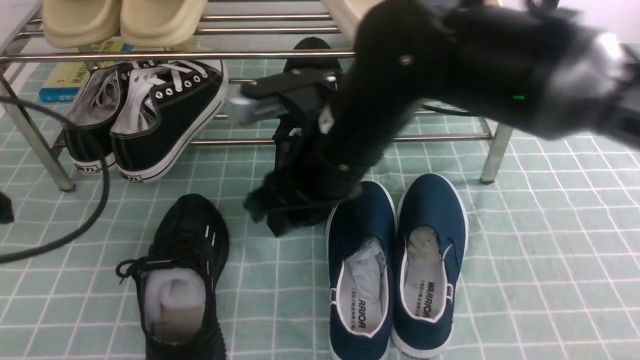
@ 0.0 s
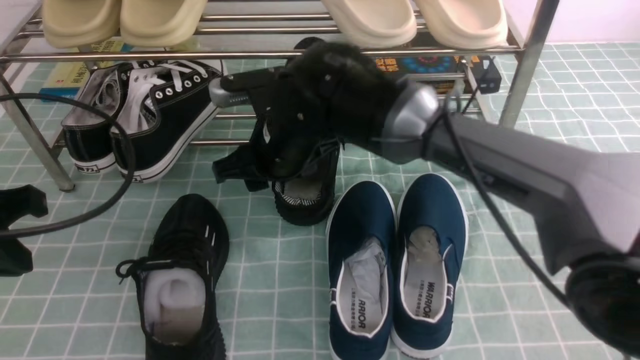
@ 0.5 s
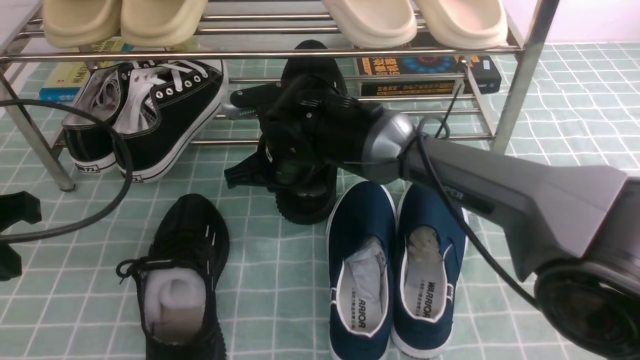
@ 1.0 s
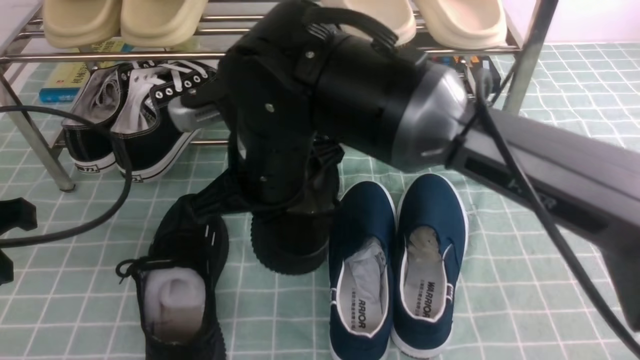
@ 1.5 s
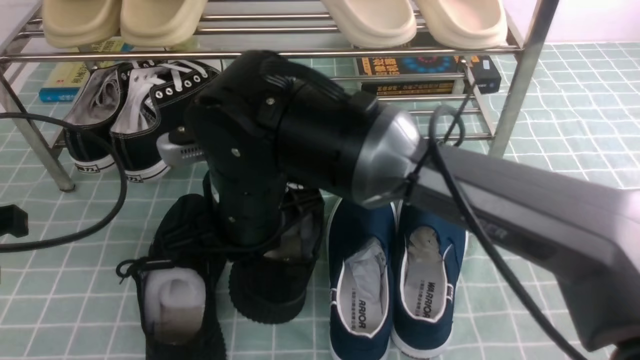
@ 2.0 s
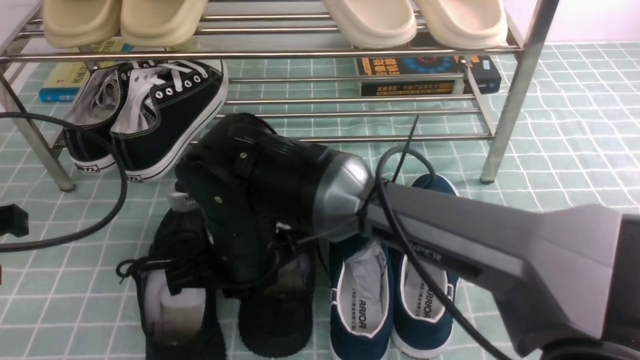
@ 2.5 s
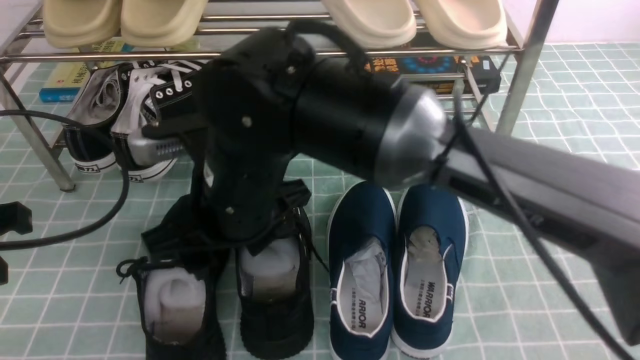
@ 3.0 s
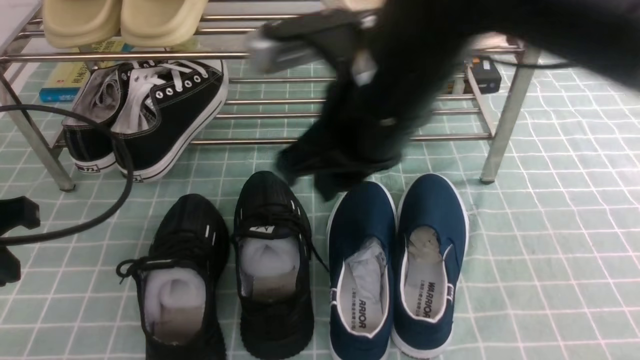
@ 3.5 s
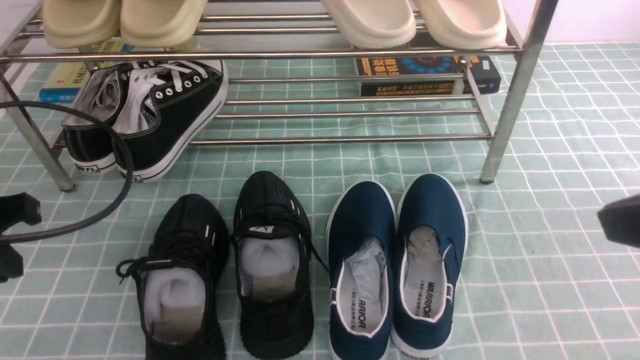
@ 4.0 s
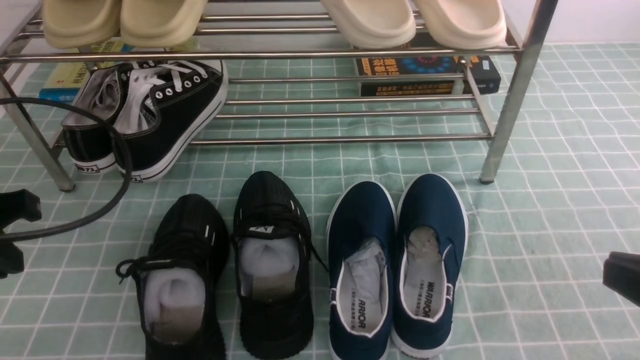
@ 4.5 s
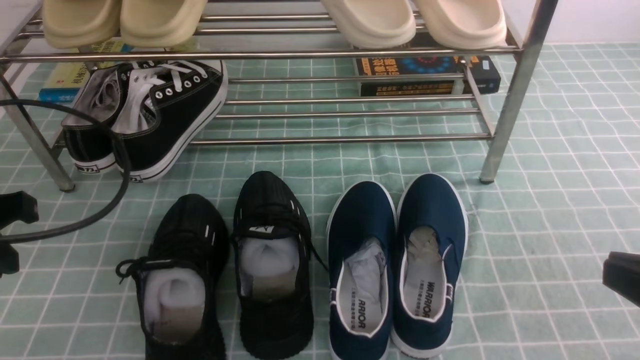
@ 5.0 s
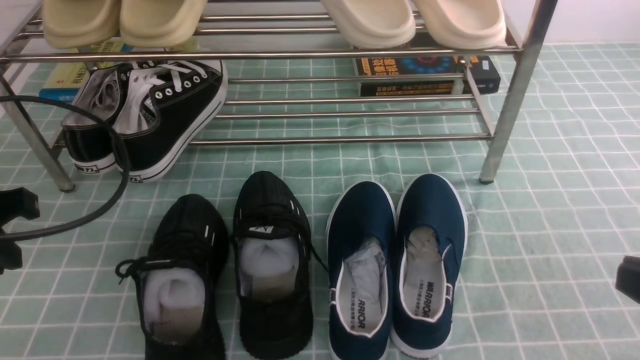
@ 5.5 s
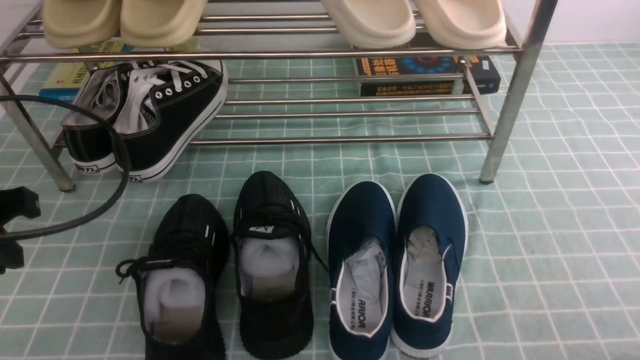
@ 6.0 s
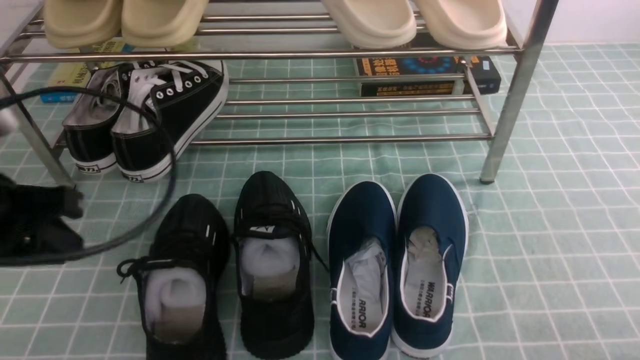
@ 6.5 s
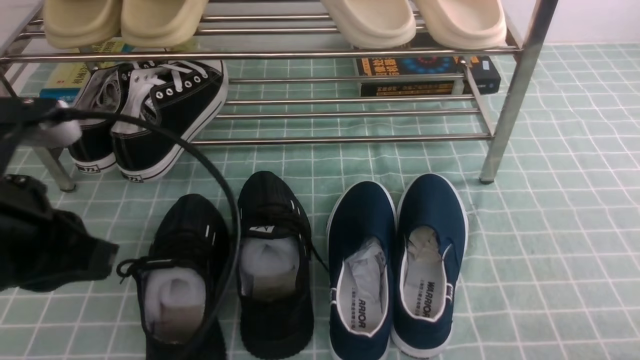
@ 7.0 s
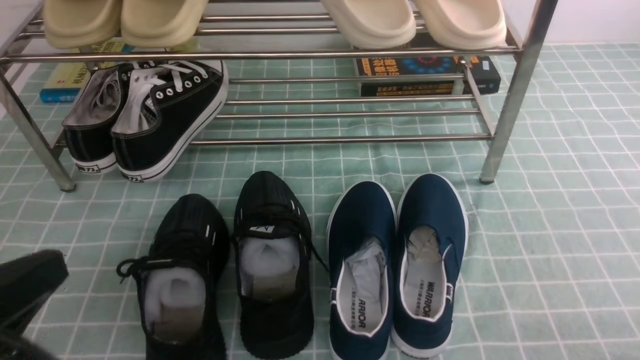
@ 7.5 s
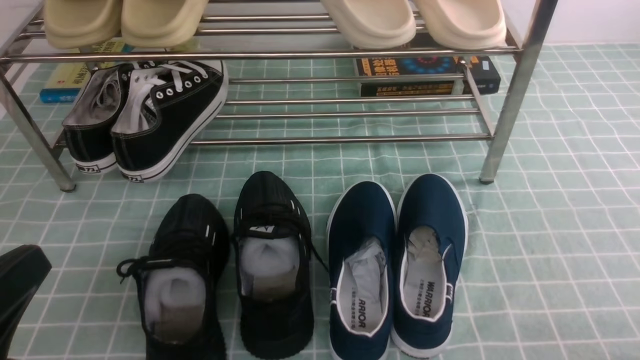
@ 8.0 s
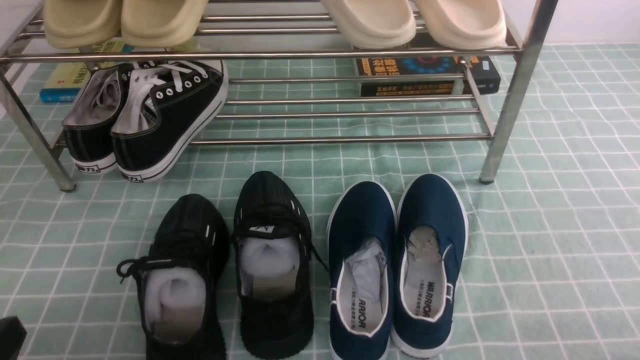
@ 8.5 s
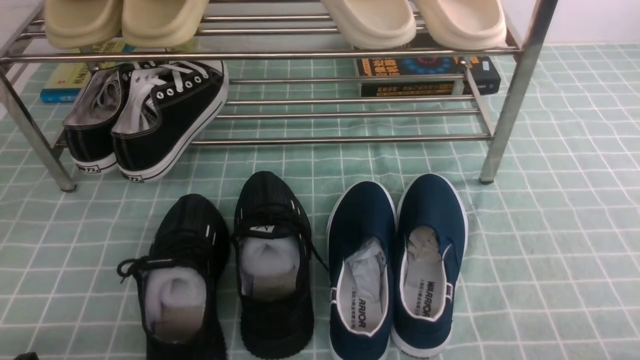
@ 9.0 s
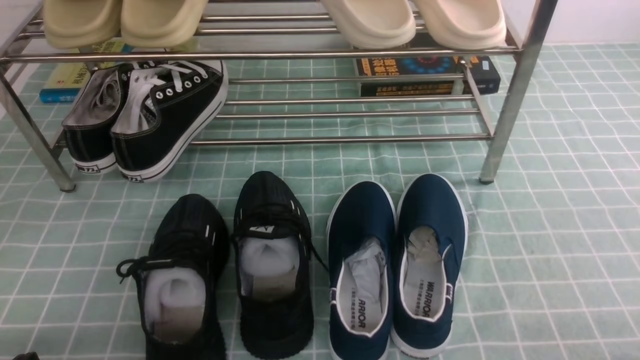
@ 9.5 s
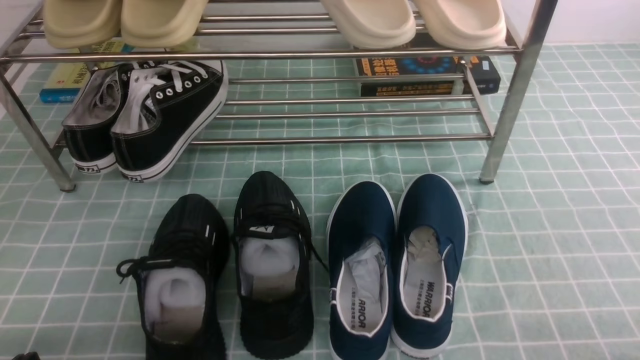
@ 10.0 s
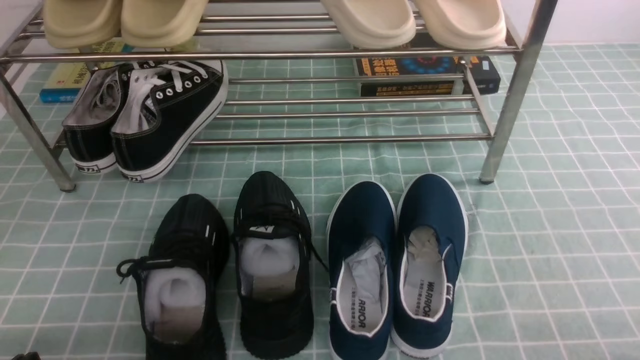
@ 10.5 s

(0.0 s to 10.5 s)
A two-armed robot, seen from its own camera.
Step, 1.0 s - 3.0 s: use the right arm to take out the clamped shoe from the shoe rack and put it down.
0.0 s - 2.0 s: The right gripper is displaced to the left by approximately 10 cm, moves roughly 10 cm forward and comes back, and closes.
2.0 s - 4.0 s: The right gripper goes some 35 cm to the right and backward, and opens, then closes again.
4.0 s - 6.5 s: The right gripper moves downward and to the right, about 25 cm.
6.5 s - 8.5 s: The left gripper moves backward and downward, roughly 20 cm.

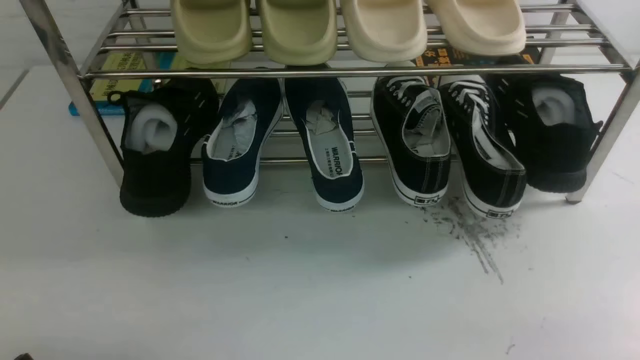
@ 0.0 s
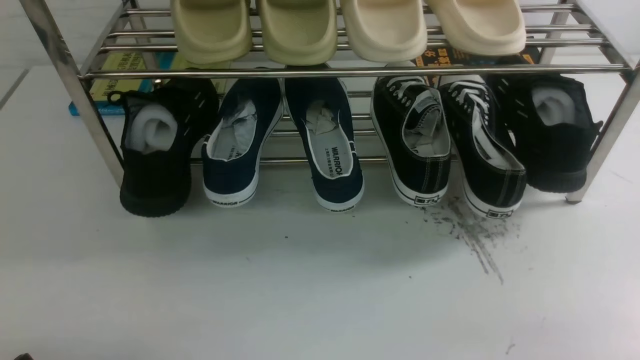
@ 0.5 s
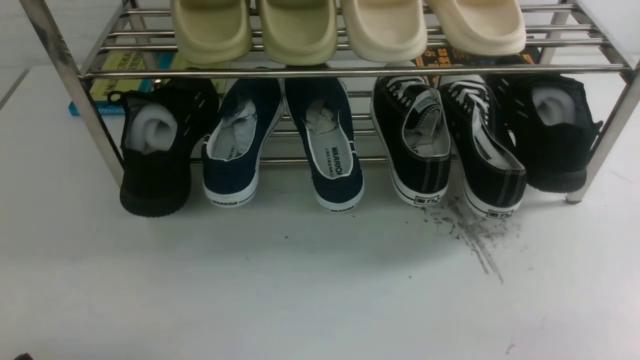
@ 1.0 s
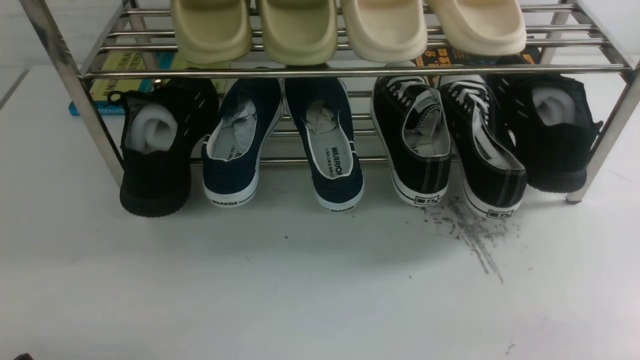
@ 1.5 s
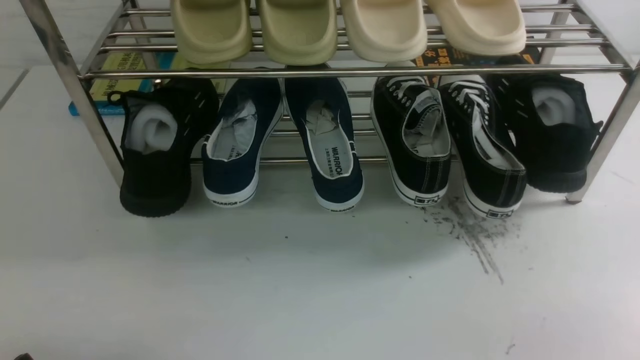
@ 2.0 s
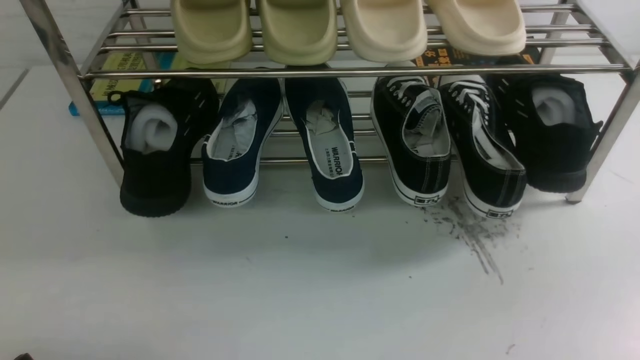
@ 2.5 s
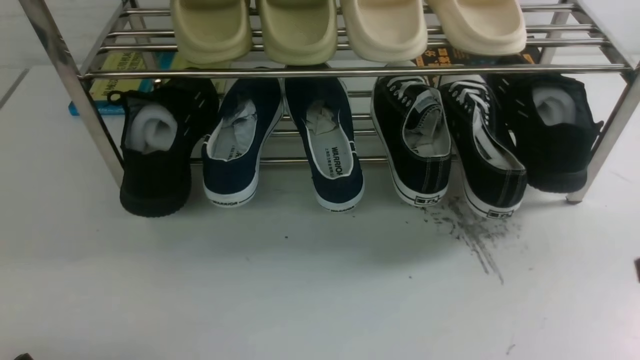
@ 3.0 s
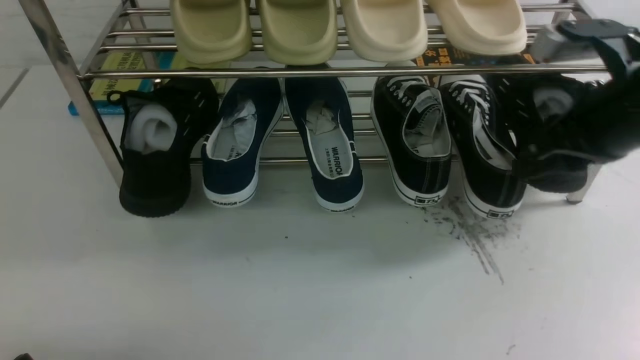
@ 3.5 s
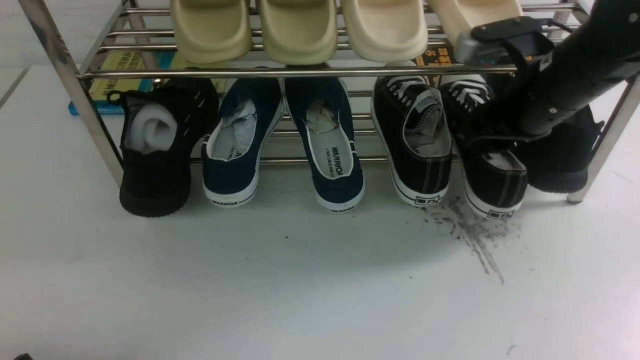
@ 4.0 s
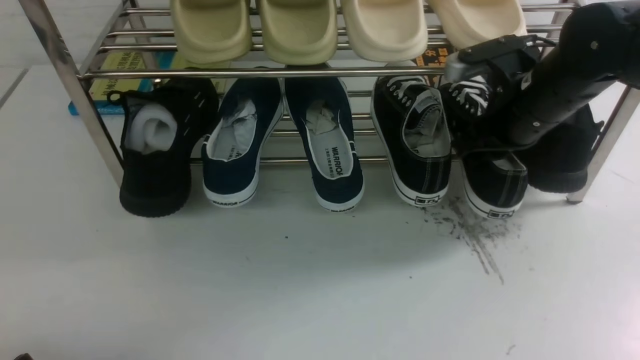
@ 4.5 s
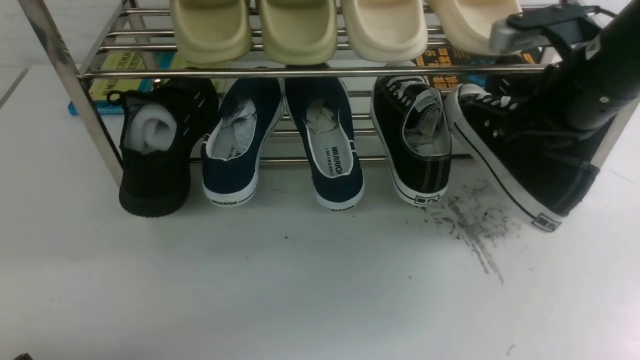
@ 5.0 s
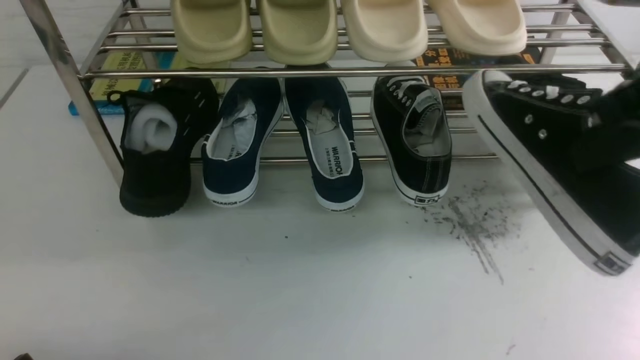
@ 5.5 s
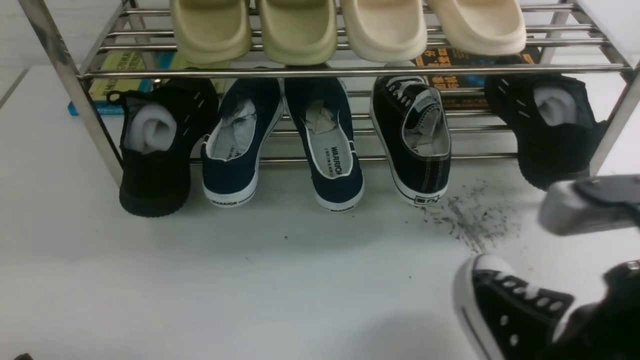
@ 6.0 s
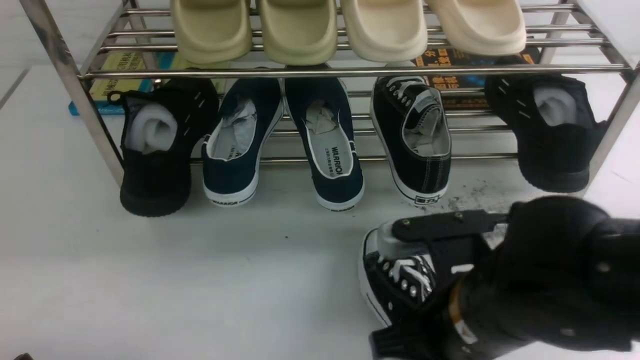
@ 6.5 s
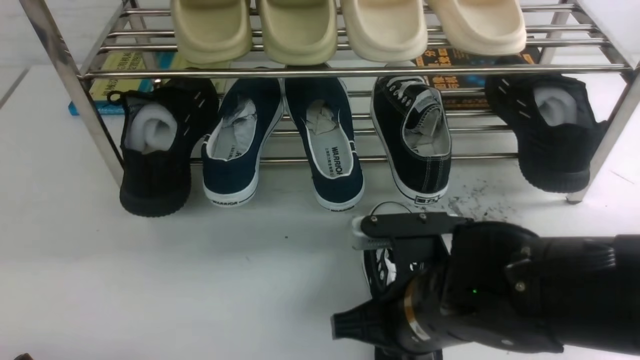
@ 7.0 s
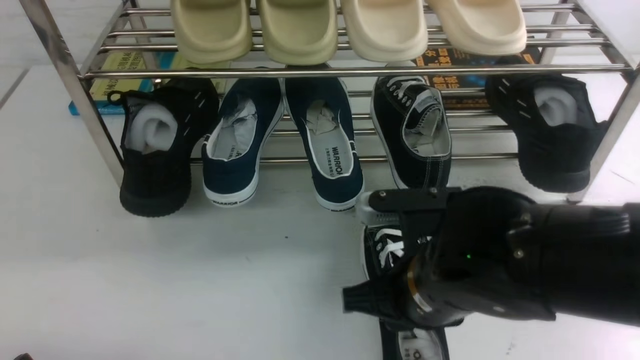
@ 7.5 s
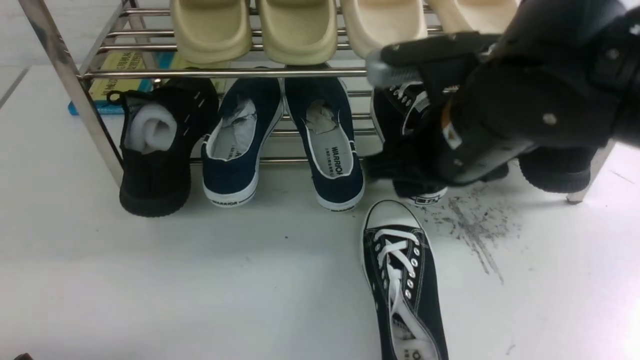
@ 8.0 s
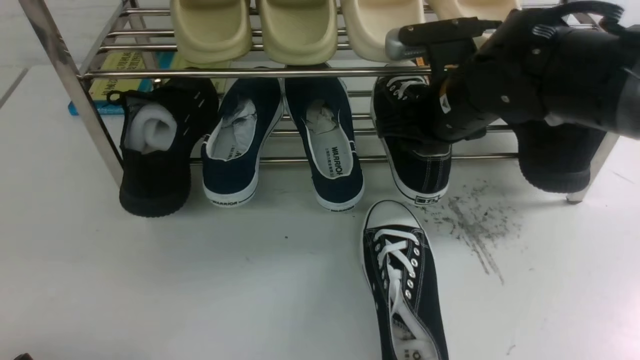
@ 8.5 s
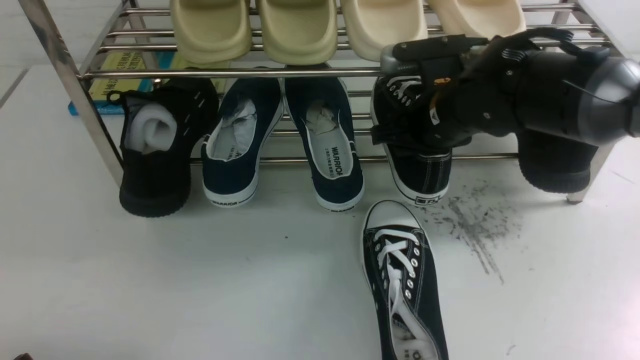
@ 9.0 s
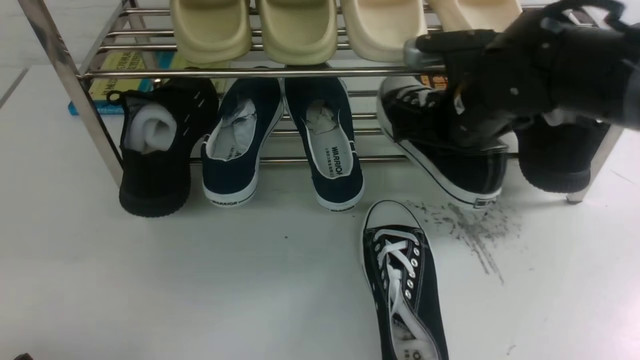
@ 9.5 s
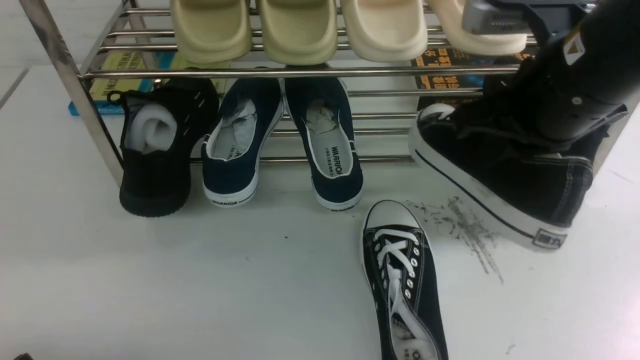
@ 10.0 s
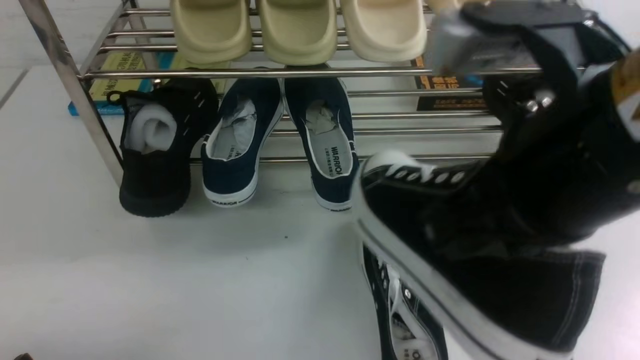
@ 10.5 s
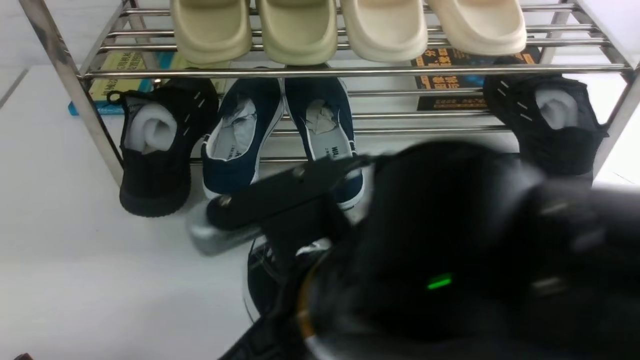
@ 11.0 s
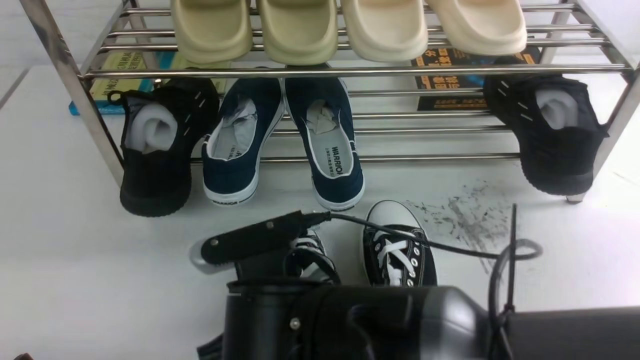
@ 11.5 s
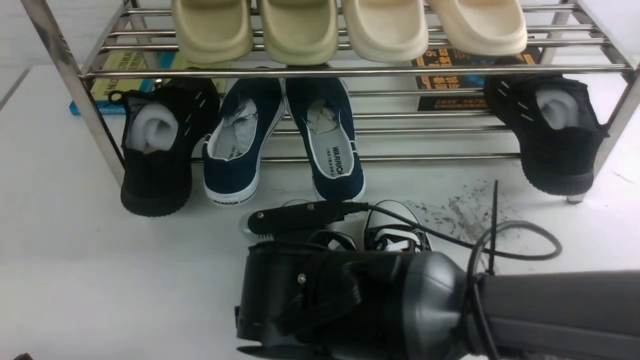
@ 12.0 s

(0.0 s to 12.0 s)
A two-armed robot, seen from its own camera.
Step, 0.0 s - 4.5 s: use the right arm to clamp a shoe on the right side of the shoe rack.
Step, 5.0 s - 7.5 s: use the right arm to take out the clamped shoe from the shoe rack and put it down.
Step, 8.0 s - 9.5 s: use the right arm to clamp a shoe on the right side of the shoe rack.
2.0 s - 4.0 s: The right gripper travels forward by about 30 cm, and closes, then reopens.
4.0 s - 6.0 s: The right gripper travels backward by some 25 cm, and closes its fingers.
6.0 s - 8.0 s: The right gripper is displaced forward and to the left by roughly 15 cm, and opens up.
8.0 s - 10.0 s: The right gripper travels to the right and upward by approximately 10 cm, and closes its fingers.
10.0 s - 12.0 s: The right gripper shifts roughly 25 cm to the left and downward.
